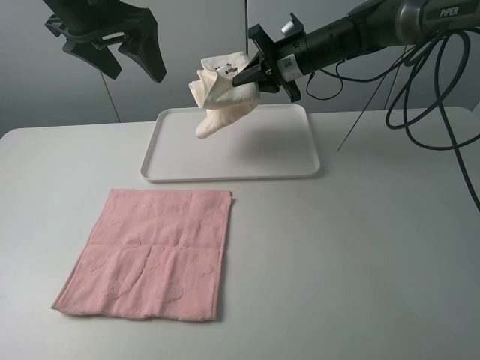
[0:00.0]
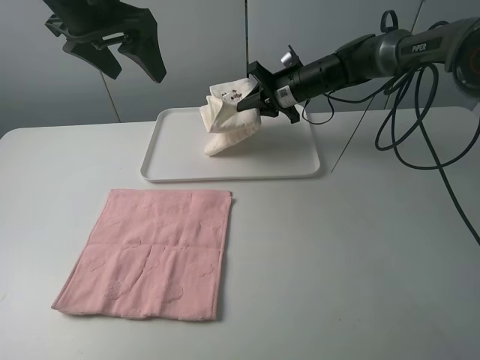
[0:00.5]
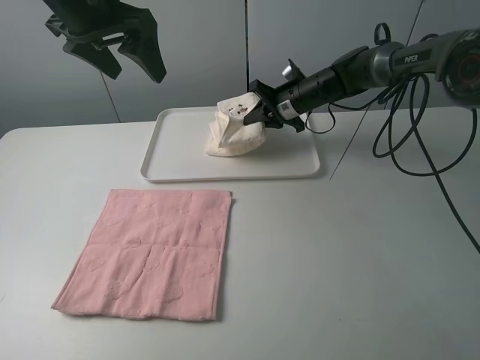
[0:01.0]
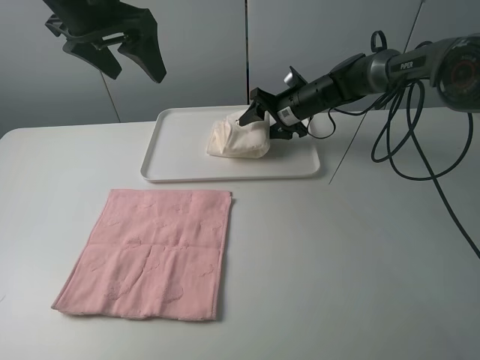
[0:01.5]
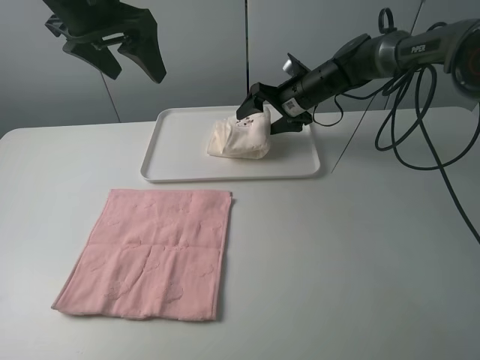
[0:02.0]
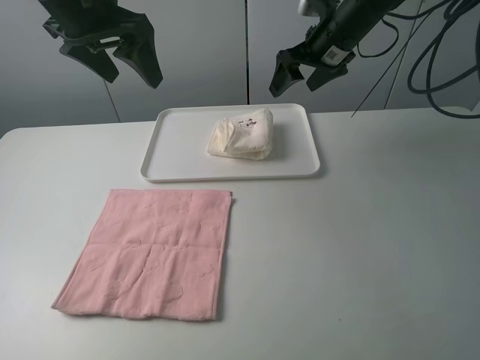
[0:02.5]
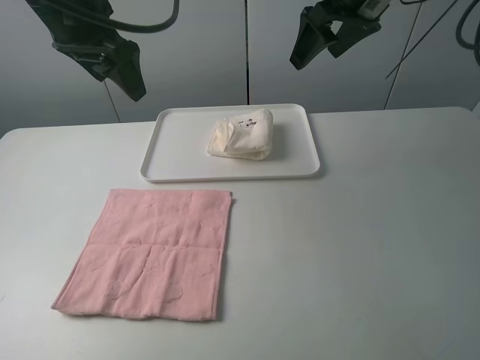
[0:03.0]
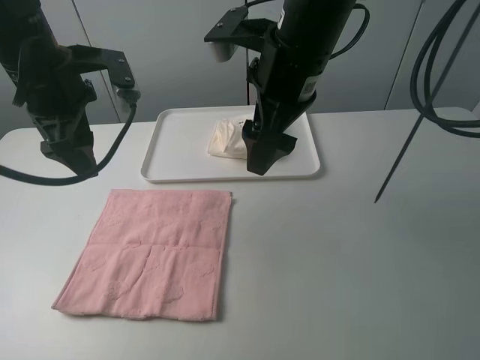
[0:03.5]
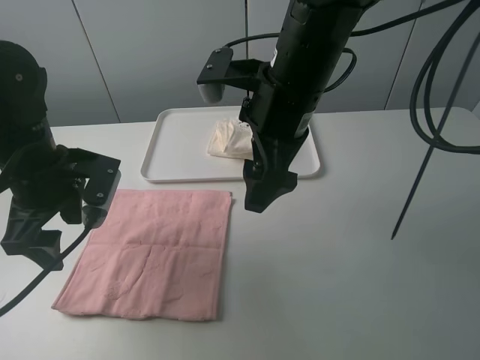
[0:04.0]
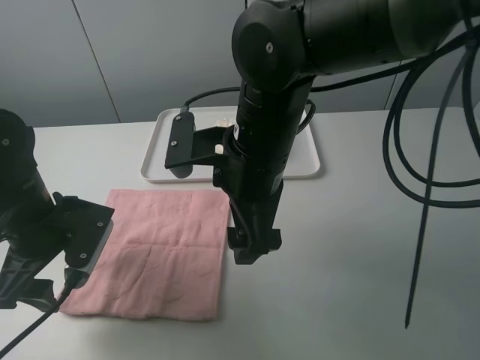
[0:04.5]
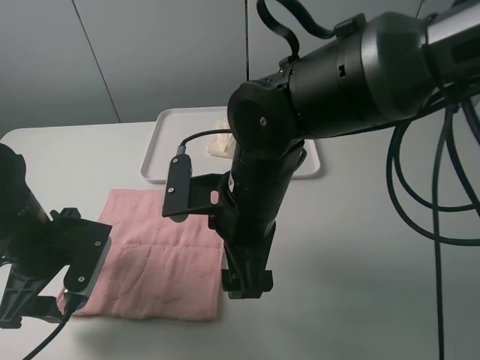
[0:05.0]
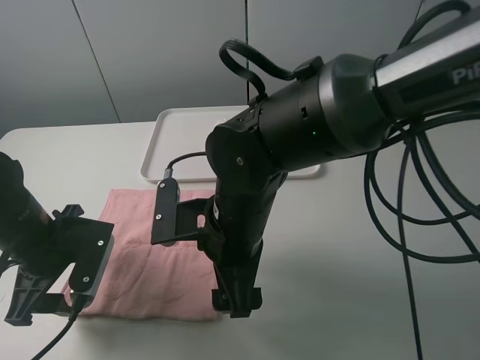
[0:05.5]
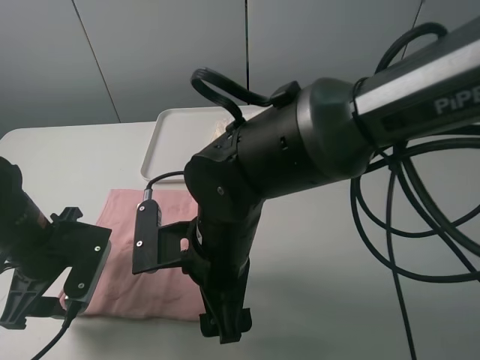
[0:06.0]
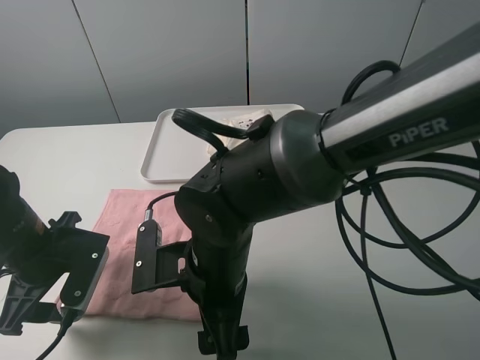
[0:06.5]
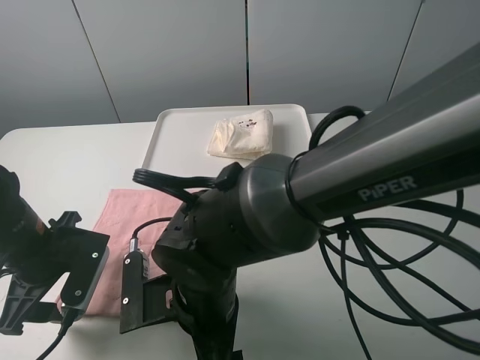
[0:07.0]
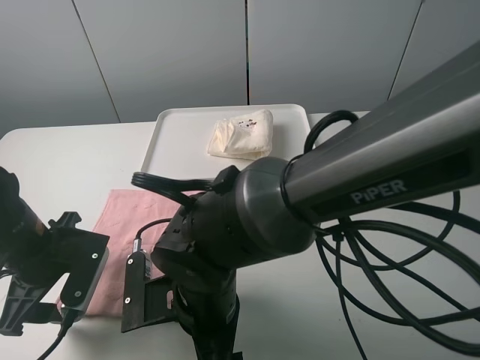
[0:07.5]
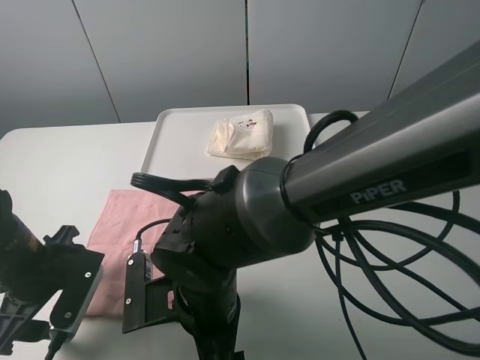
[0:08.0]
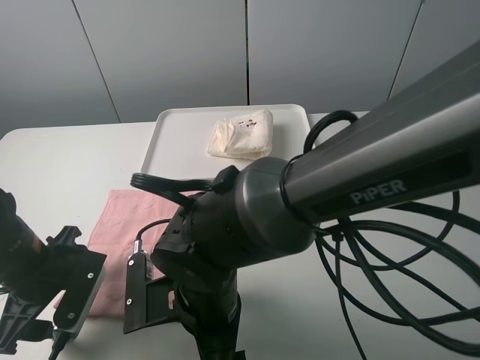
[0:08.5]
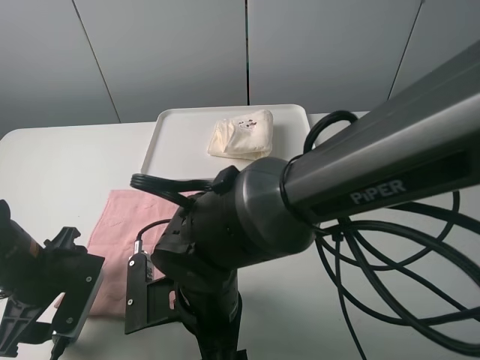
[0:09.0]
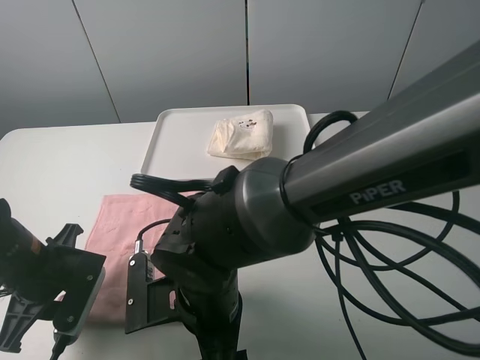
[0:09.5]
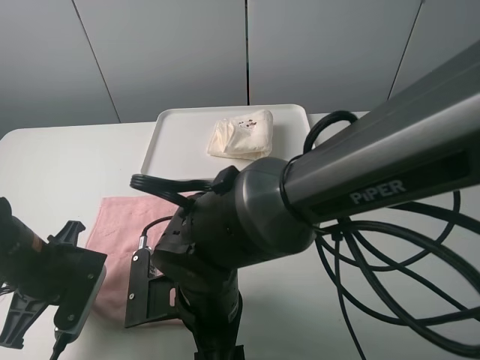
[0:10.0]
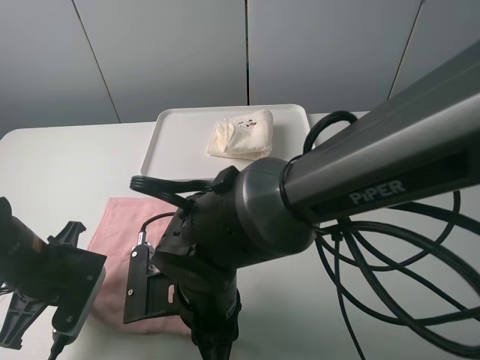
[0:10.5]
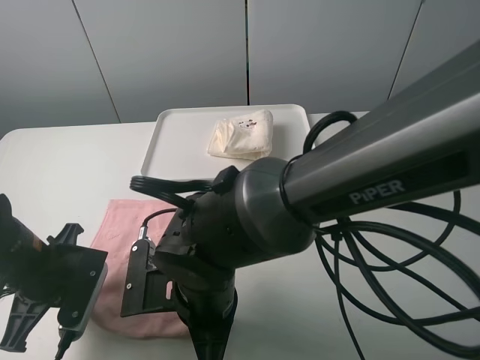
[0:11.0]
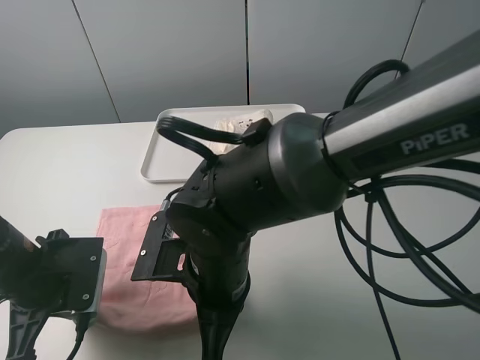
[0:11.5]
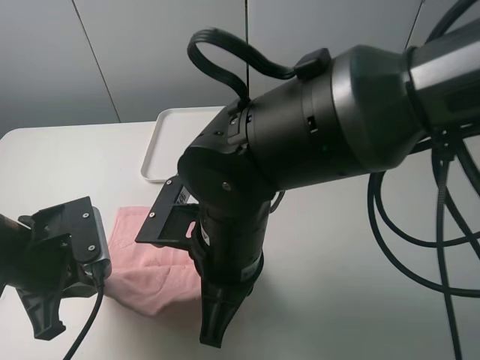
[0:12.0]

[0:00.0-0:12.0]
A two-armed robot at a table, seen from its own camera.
Task of the whole recording: fold one of the towels by two grippers and place it on the tray,then fold another towel by two grippers and place it on the folded towel.
Step, 0:02.0 to 0:10.0: Grasp the pink towel with the left gripper.
0:00.0 to 0:02.0: The right gripper travels downward by roughly 5 cm, and opens its fingers.
0:02.0 to 0:04.0: The left gripper shifts some 20 cm downward and backward. Meanwhile the right gripper heads backward and upward, covering approximately 25 cm.
0:04.0 to 0:06.0: The right gripper goes roughly 15 cm downward, backward and to the left; the left gripper goes approximately 10 cm downward and backward.
0:06.0 to 0:08.0: The right gripper changes place by about 5 cm.
0:08.0 to 0:10.0: The left gripper closes up.
0:10.0 to 0:12.0: The left gripper changes place by approximately 5 cm; the right gripper moves upward, some 5 cm, and closes its fingers.

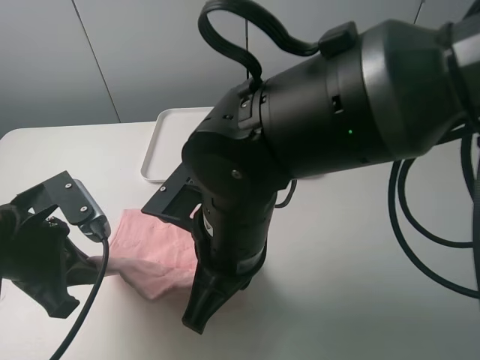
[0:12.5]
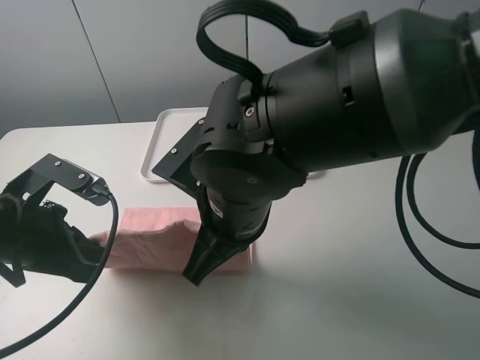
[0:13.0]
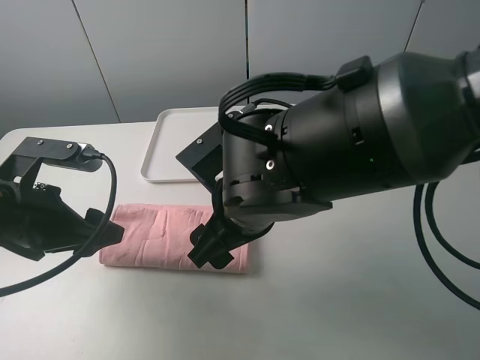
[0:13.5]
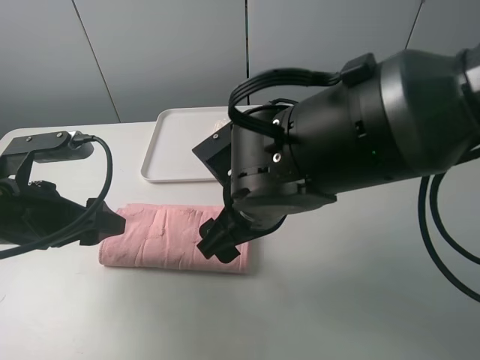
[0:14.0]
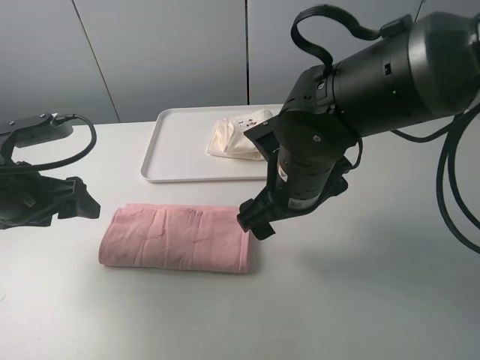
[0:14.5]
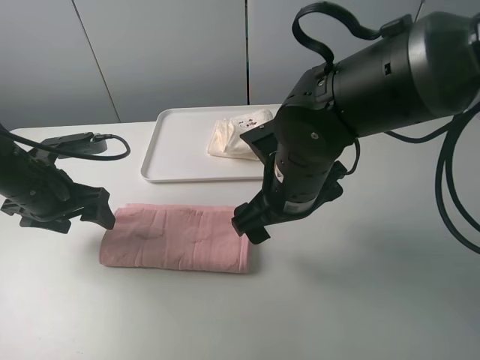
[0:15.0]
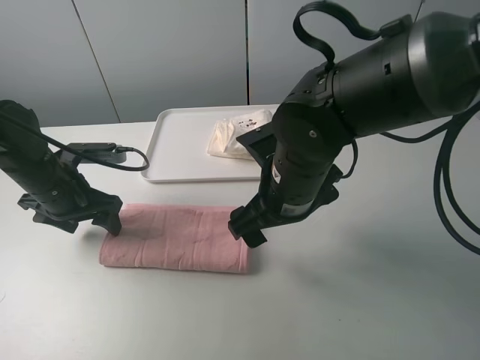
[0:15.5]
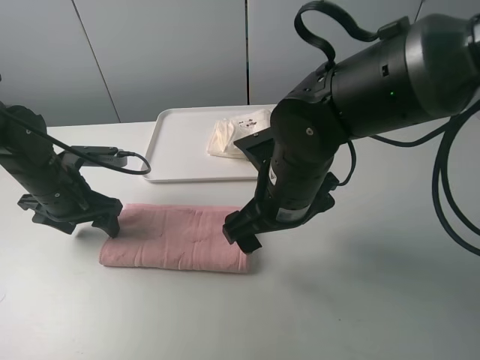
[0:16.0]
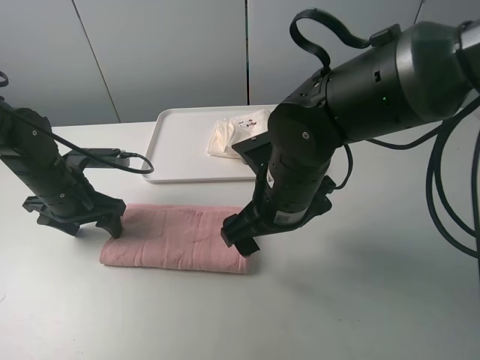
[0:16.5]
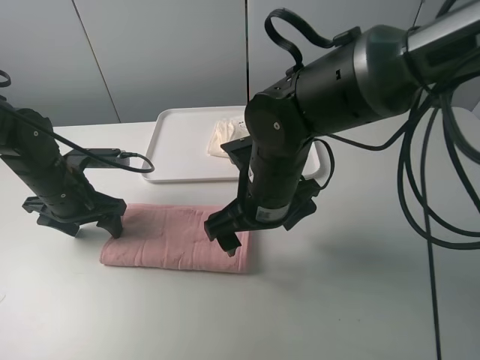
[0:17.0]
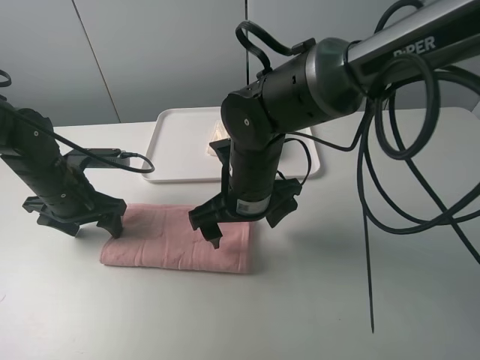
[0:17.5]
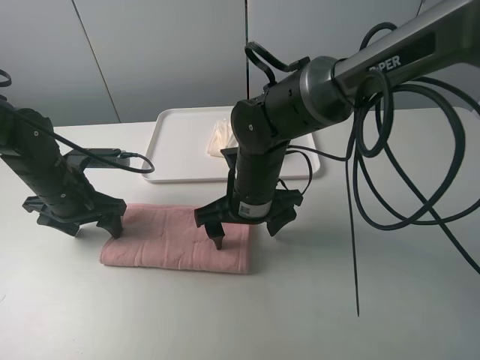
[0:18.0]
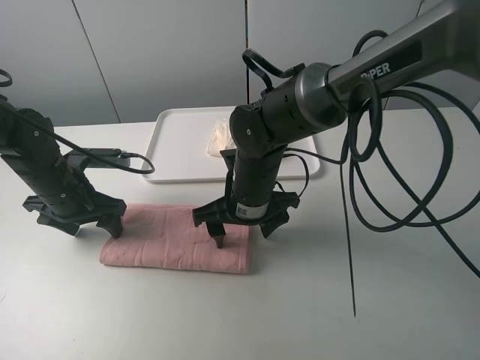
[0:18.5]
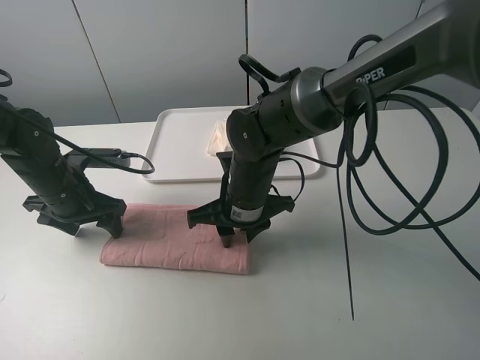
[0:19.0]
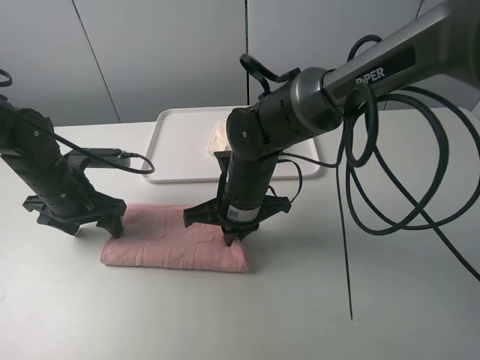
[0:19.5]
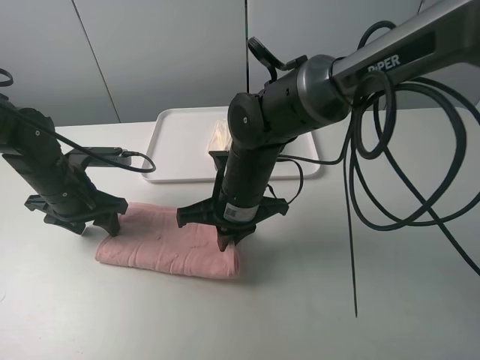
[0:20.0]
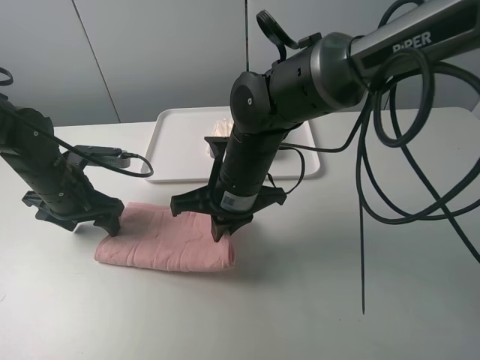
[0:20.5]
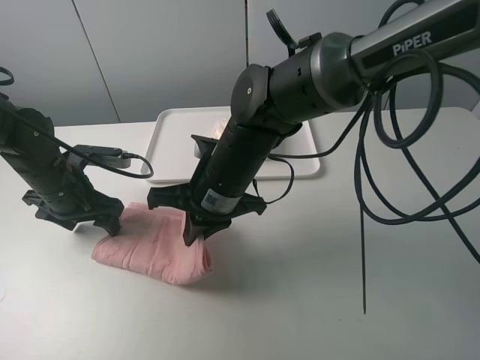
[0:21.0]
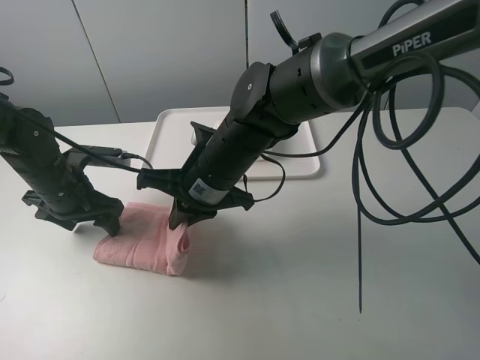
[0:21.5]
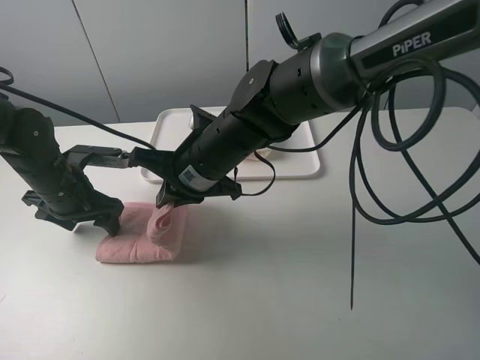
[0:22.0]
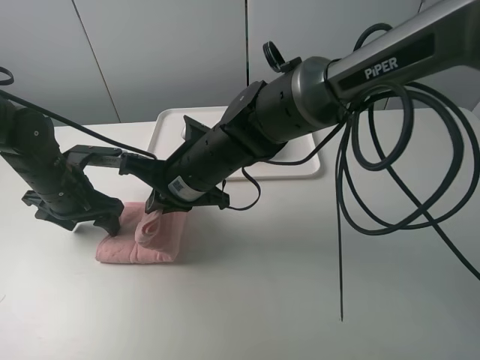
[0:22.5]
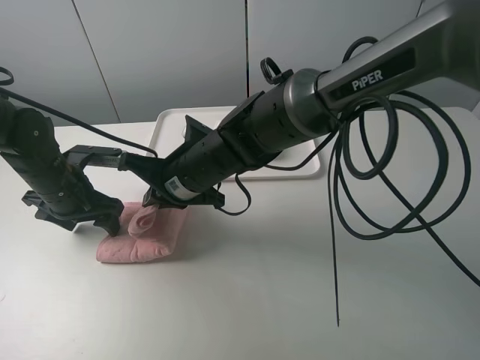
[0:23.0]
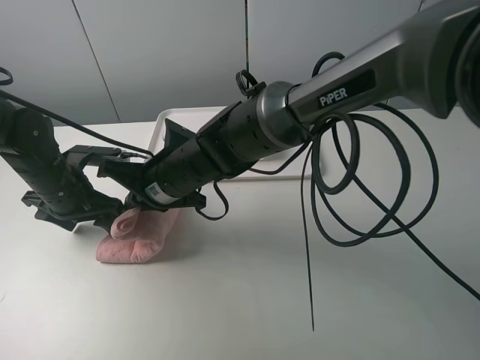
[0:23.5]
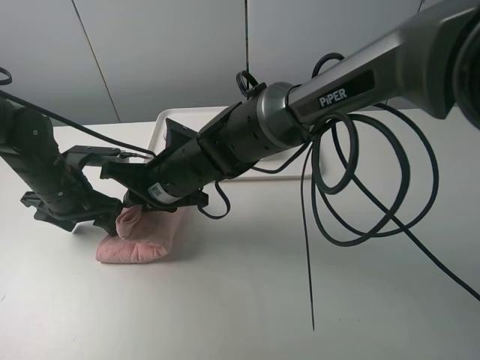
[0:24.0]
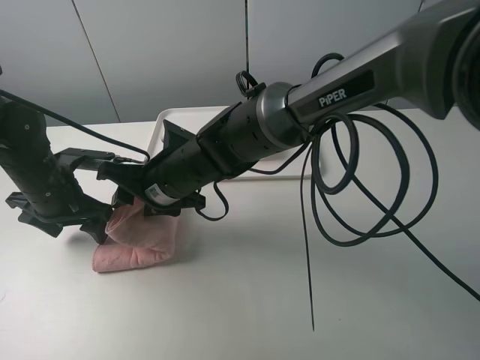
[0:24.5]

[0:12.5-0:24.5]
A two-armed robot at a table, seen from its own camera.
Task of the whole recording: fold one of the towels by two grippers and place it on the tray,then fold another towel by two grippers and place it on the folded towel.
Step, 0:14.0 to 0:16.0: Press the pink towel with the left gripper.
Step, 0:16.5 to 0:19.0: Grasp the pink towel with the right gripper.
0:12.5 to 0:14.5: The left gripper goes some 5 cm forward, and opens its fingers. Meanwhile the right gripper shifts some 10 cm forward and to the right, and opens up.
0:14.5 to 0:16.5: The left gripper shifts about 10 cm downward and forward.
0:16.5 to 0:18.5: The right gripper is displaced downward and forward by some 10 cm.
0:18.5 to 0:20.5: The right gripper closes up.
0:22.5 to 0:24.5: The right gripper opens.

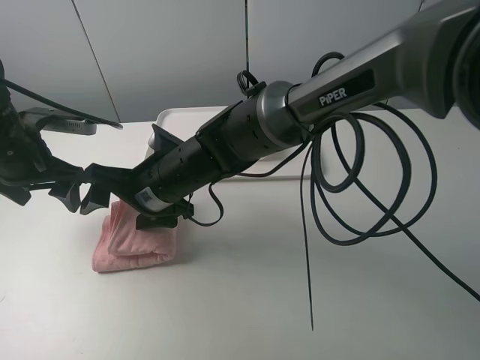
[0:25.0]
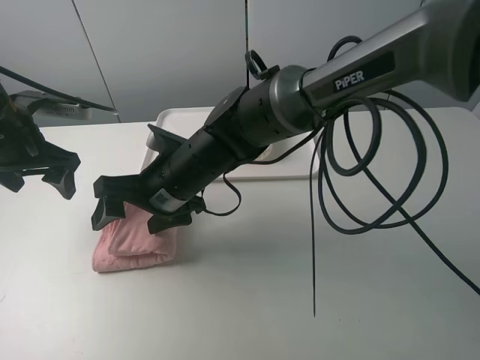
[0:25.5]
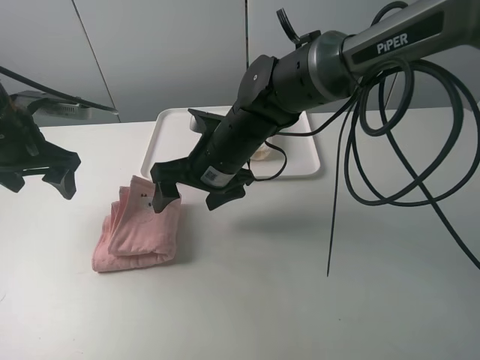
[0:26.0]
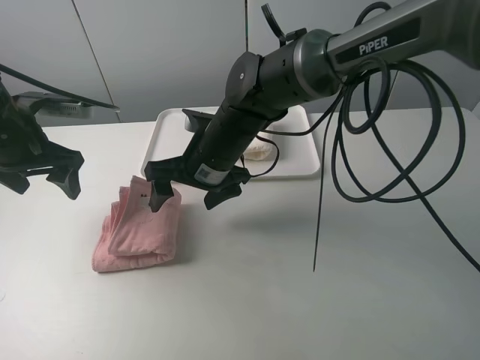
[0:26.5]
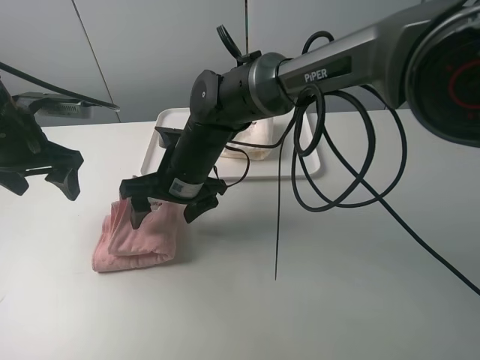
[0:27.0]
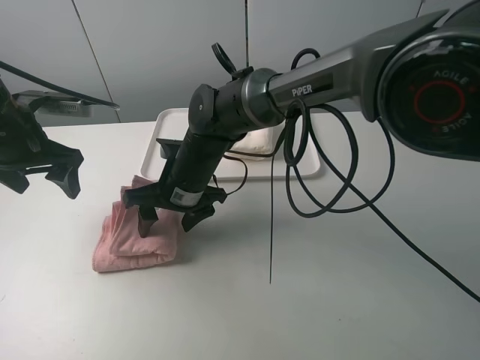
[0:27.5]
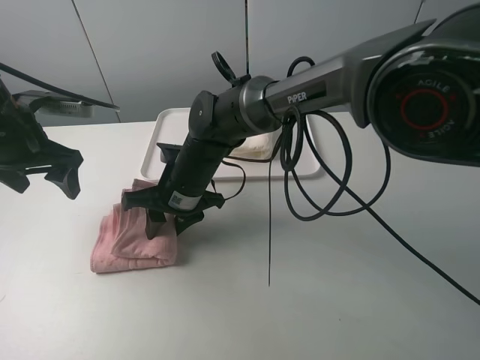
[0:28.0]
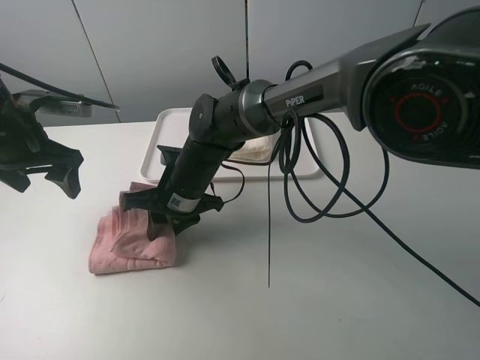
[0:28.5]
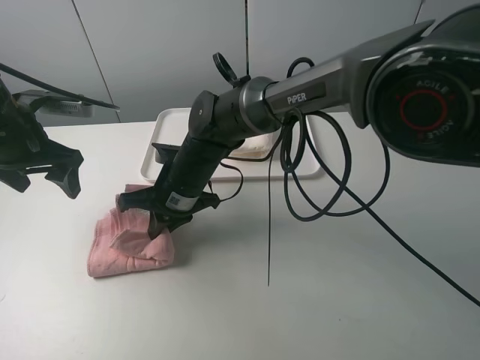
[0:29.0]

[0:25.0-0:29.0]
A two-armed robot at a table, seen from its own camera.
Task of the whole recording: fold one of the towels by two grippers and place it on the tray,then fold another towel by two grippers and place it on the folded towel.
Step, 0:25.5 to 0:27.5: Grasp the pink towel with the right gripper.
0:27.0 to 0:29.0: The right gripper closes up.
